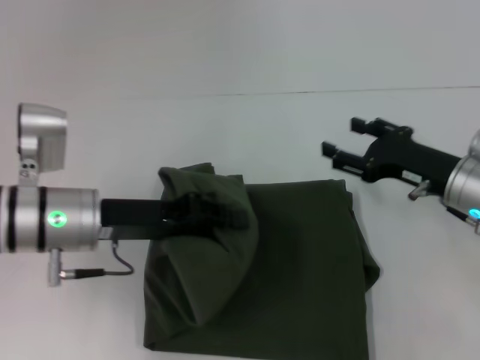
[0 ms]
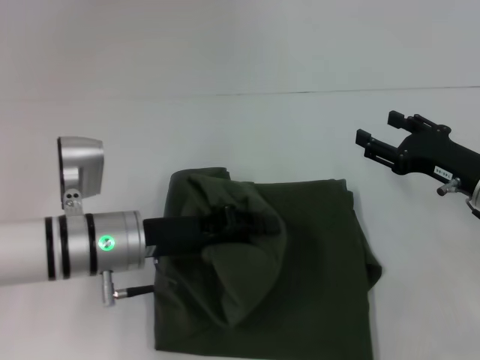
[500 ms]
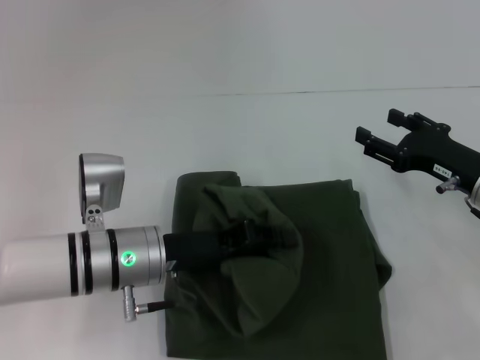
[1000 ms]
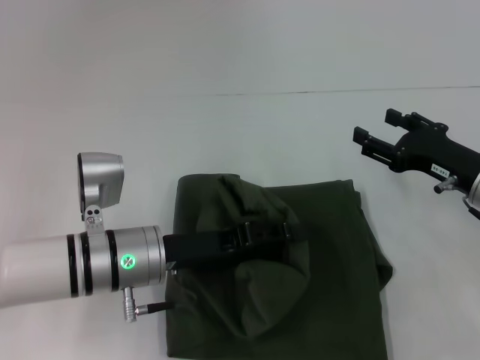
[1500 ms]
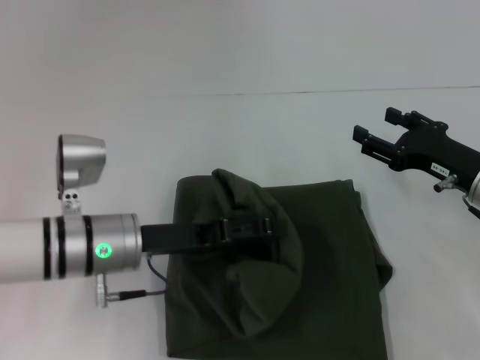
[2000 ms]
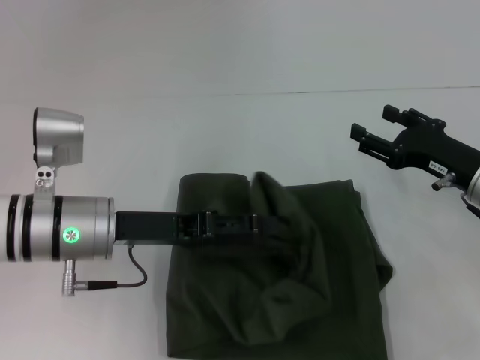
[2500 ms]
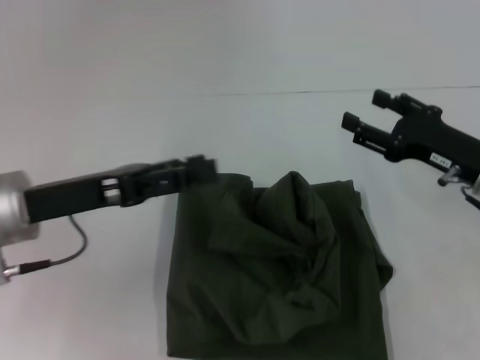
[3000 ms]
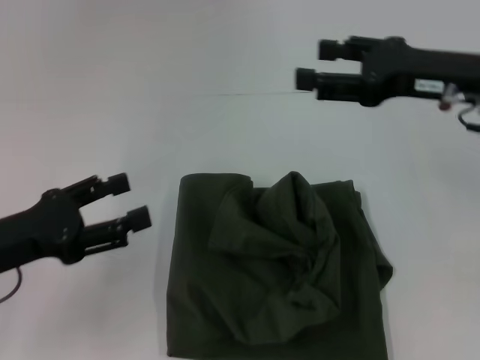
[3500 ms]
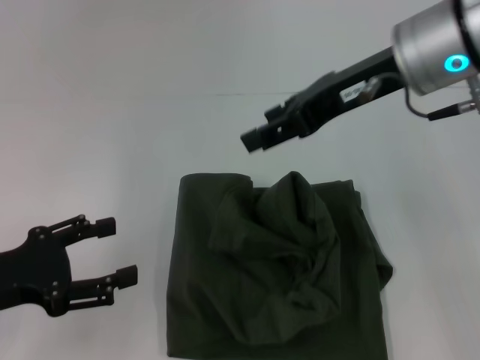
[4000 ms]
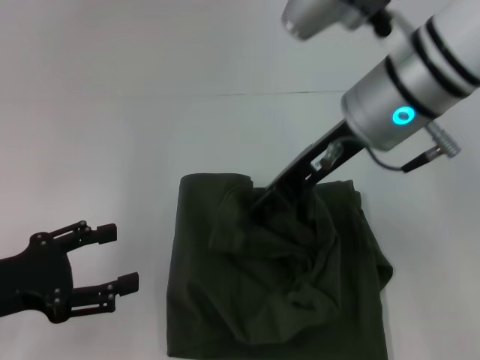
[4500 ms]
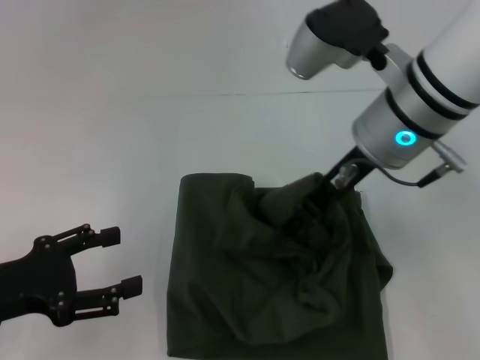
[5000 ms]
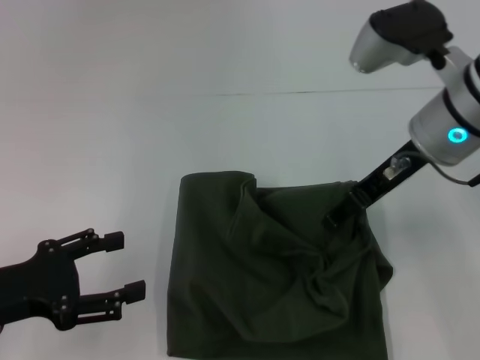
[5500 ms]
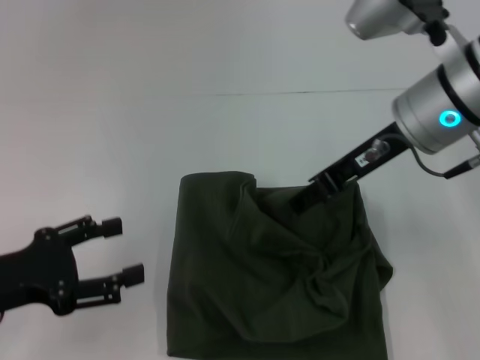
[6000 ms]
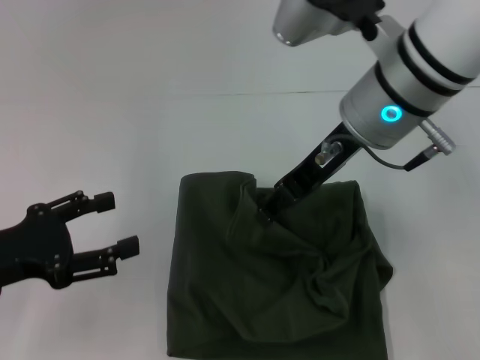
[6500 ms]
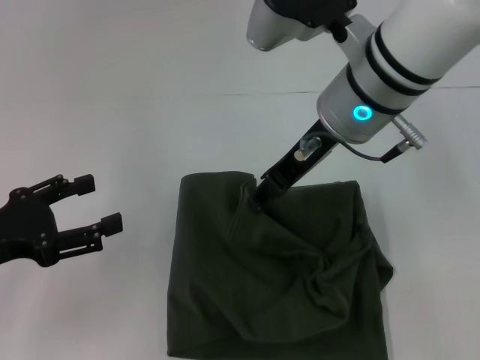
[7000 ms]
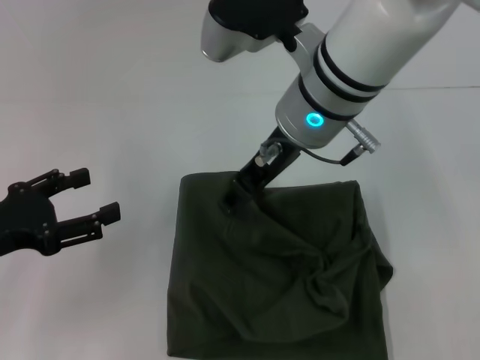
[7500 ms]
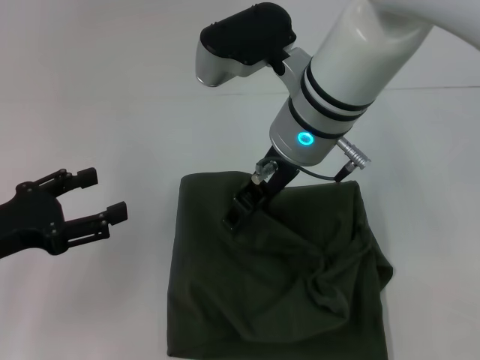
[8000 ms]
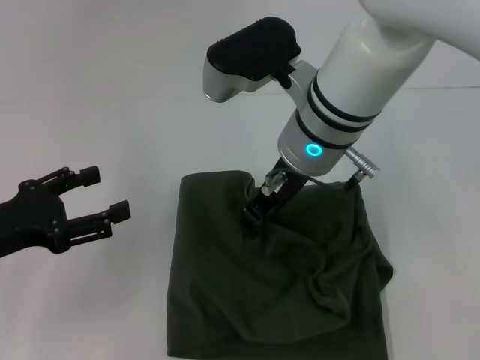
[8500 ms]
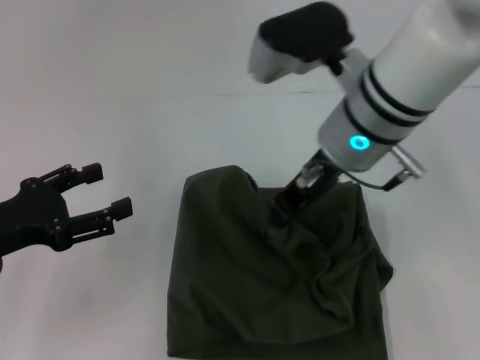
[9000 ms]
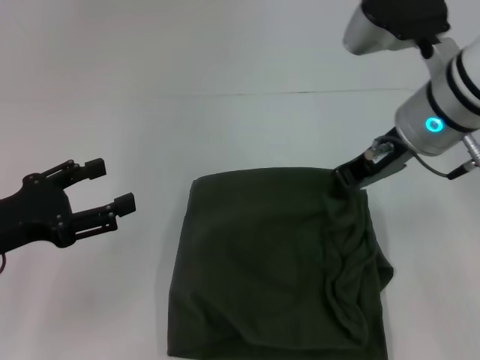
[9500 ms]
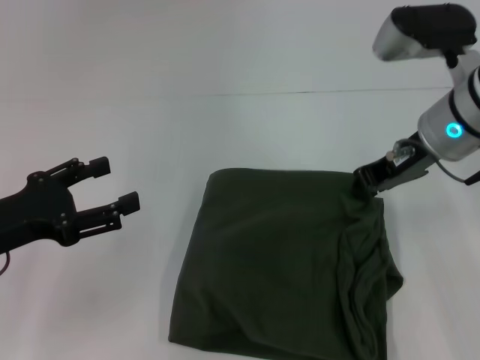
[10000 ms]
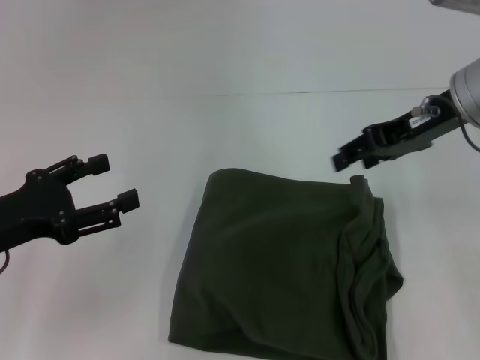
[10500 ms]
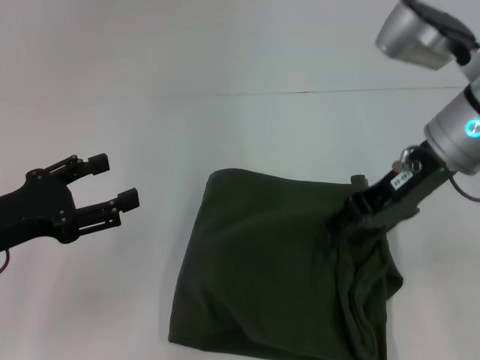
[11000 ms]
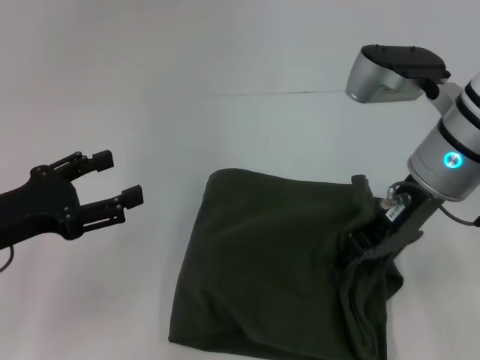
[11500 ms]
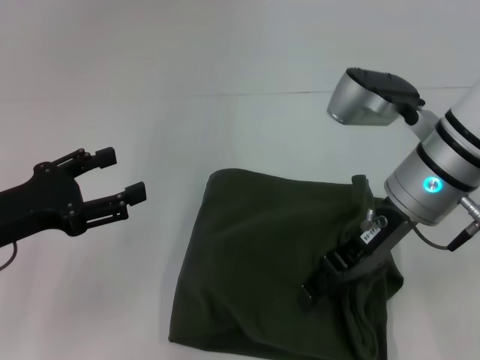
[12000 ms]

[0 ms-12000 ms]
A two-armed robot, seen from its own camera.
Step, 0 ms to 10000 ms: Fold the clothes with your left hand.
0 ms to 2000 ms: The left gripper opens.
2000 ms to 4000 ms: The right gripper shifts roughly 25 cm upward and to the left, while the left gripper travels to the left and backward by about 15 cm.
6000 ms to 8000 ms: The right gripper heads to the left, covering approximately 10 cm.
8000 ms to 10000 ms: The right gripper travels to the right by approximately 15 cm, and closes its fingers.
10000 ms to 12000 ms: The right gripper ends up about 5 cm from where it was, and opens its fingers.

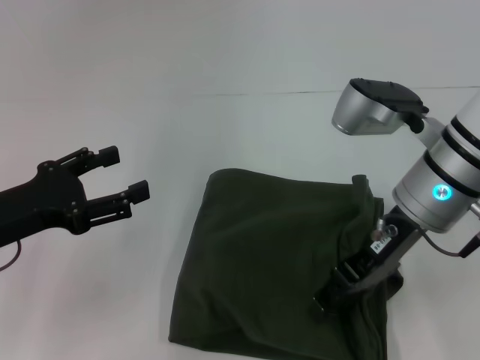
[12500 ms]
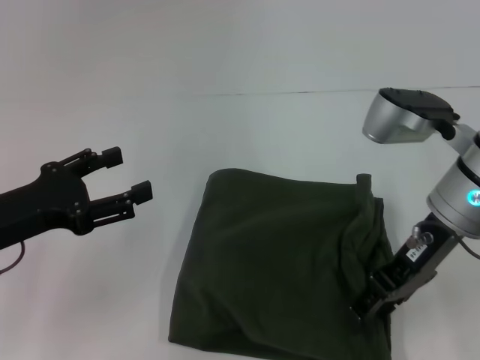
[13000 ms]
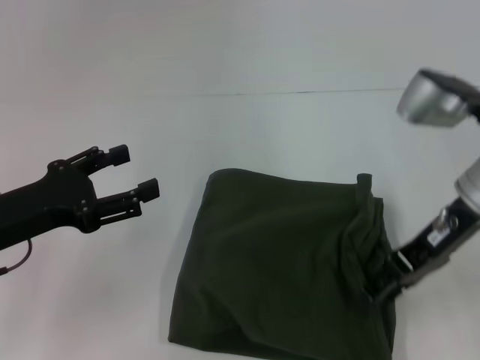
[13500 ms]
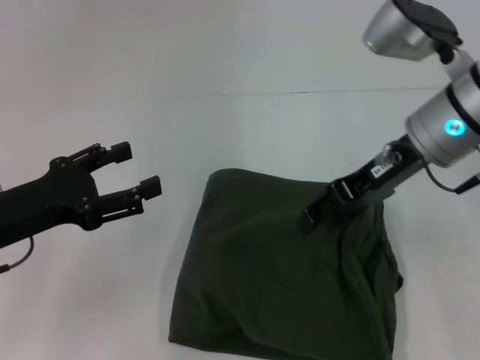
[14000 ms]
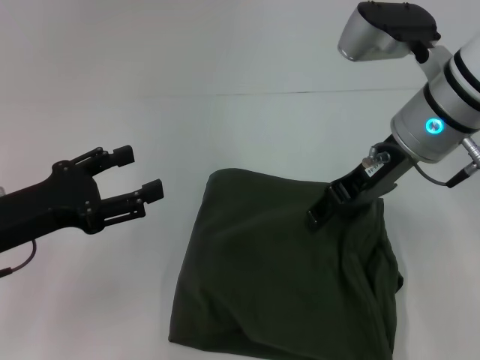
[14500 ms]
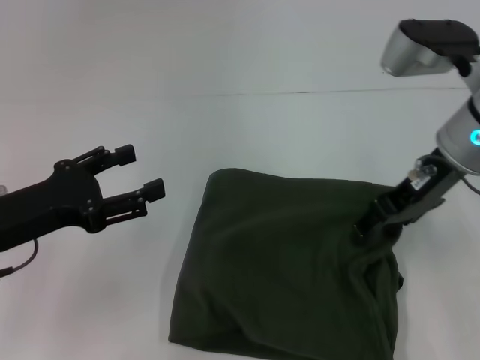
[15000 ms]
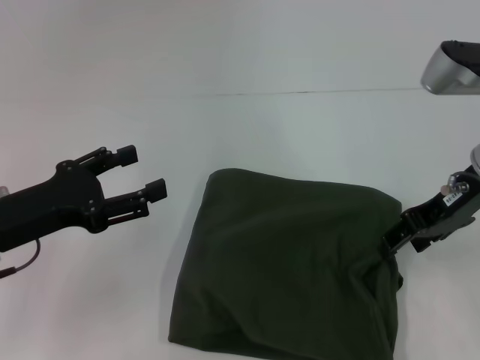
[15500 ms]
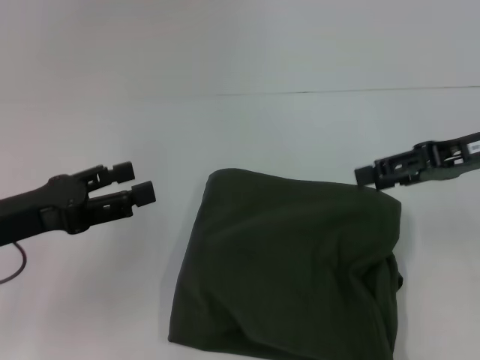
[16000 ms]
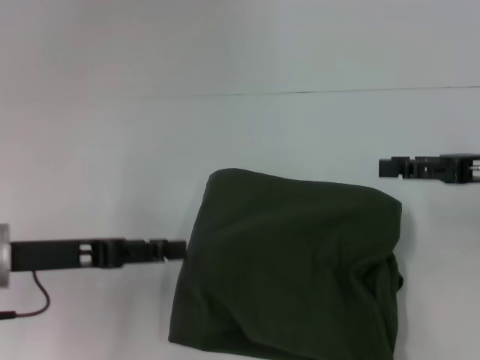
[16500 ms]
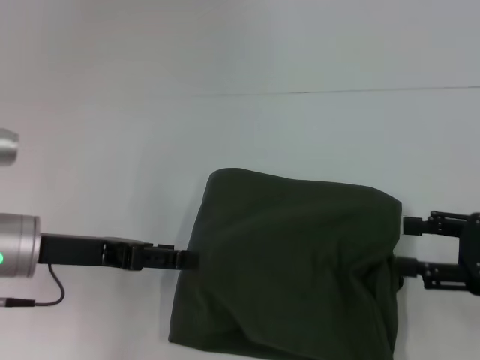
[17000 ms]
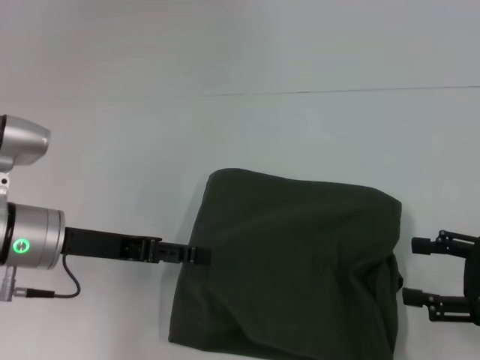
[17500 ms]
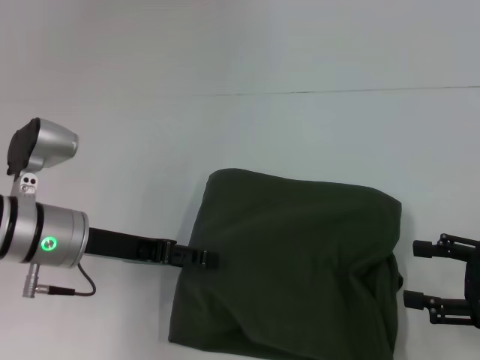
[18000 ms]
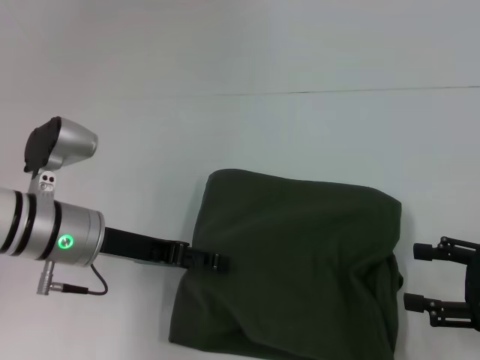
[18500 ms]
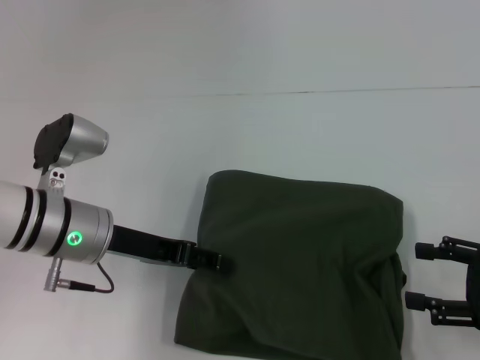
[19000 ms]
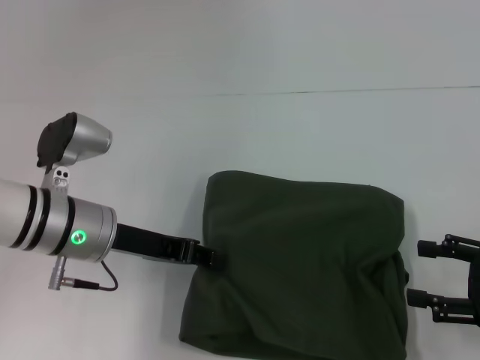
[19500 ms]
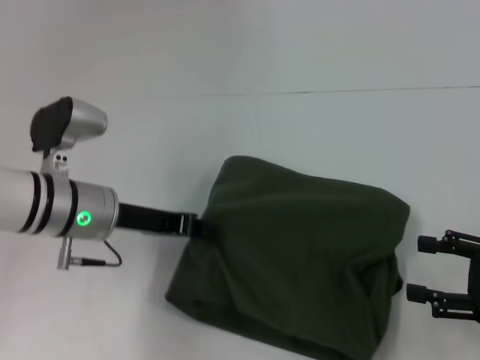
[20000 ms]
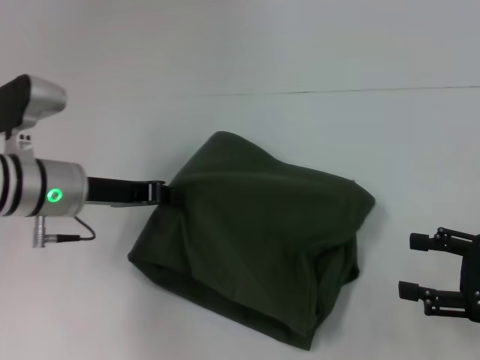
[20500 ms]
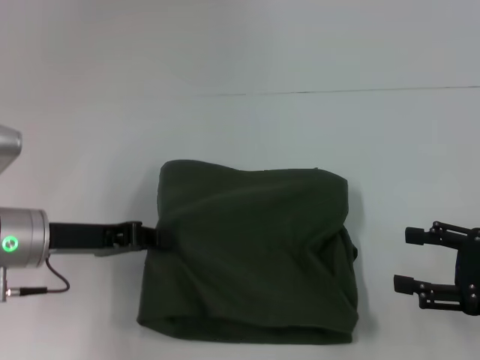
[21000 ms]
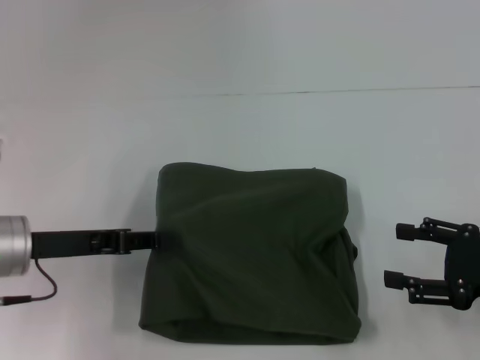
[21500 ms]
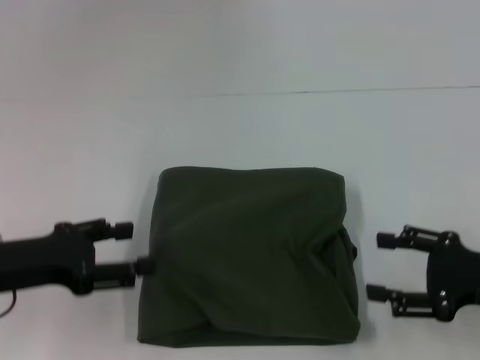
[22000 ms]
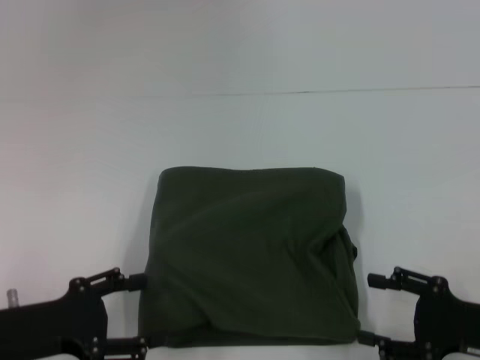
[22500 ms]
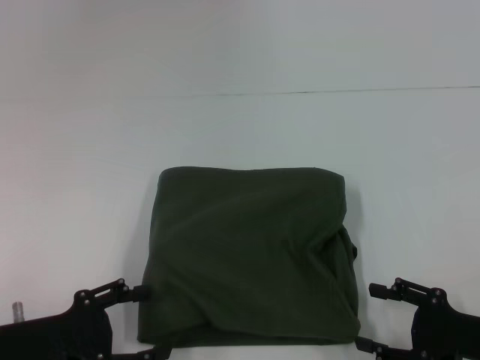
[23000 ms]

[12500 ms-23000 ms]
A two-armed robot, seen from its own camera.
12500 ms to 14500 ms: The right gripper shifts by roughly 5 cm.
14500 ms to 16500 ms: The right gripper moves to the right, approximately 15 cm.
16500 ms to 19000 ms: The right gripper shifts some 10 cm backward and downward. Meanwhile the left gripper travels to the right by some 5 cm.
19000 ms to 21000 ms: The left gripper goes approximately 5 cm to the left, and closes its fingers.
21000 ms to 23000 ms: The left gripper is displaced backward by roughly 10 cm, and opens up, while the right gripper moves downward, some 5 cm.

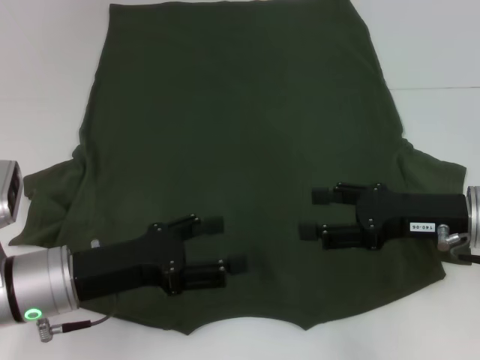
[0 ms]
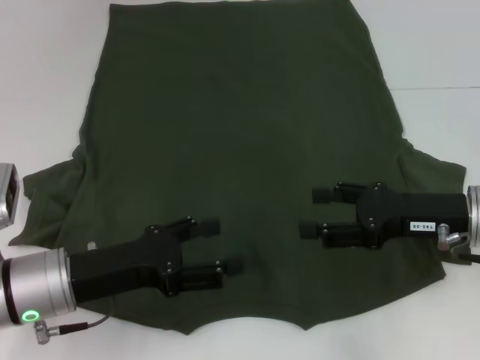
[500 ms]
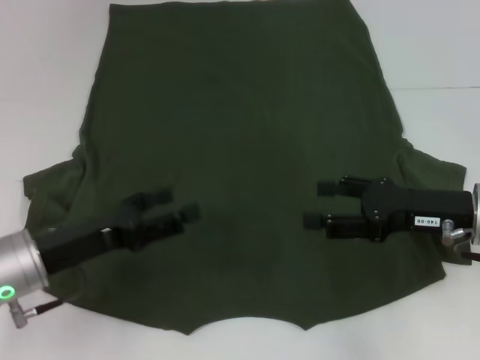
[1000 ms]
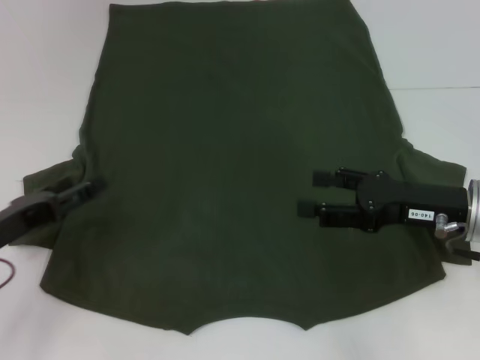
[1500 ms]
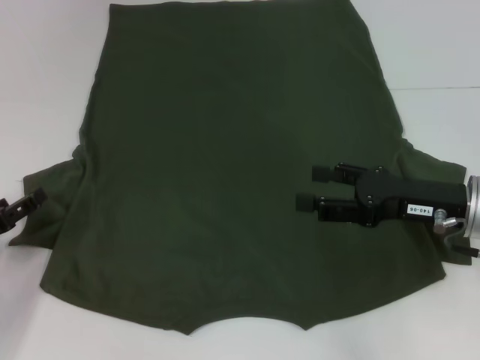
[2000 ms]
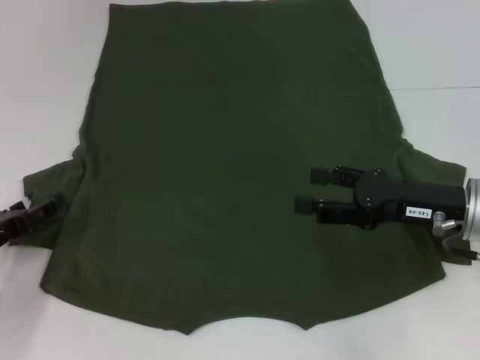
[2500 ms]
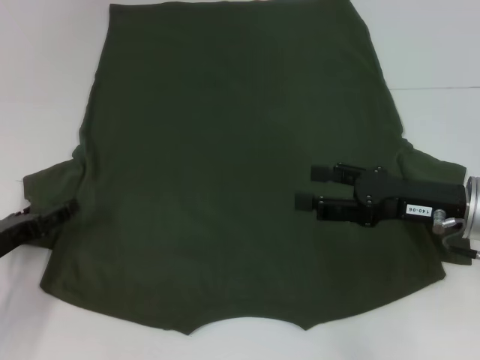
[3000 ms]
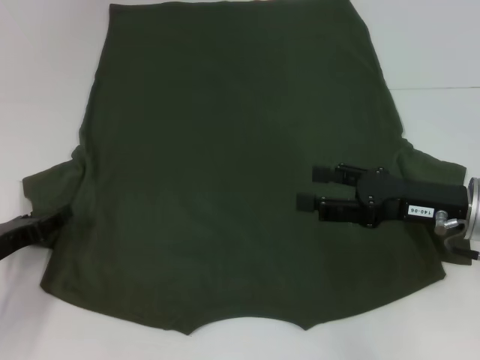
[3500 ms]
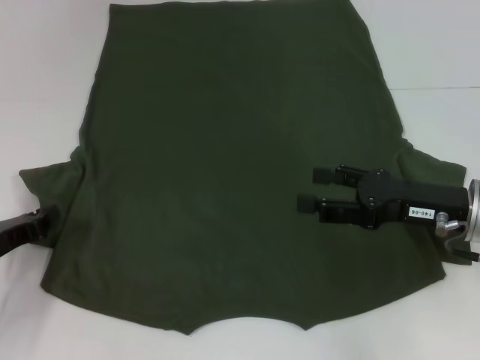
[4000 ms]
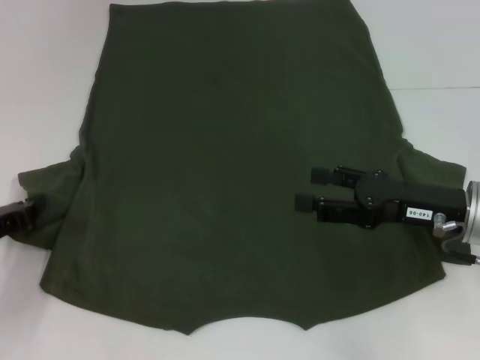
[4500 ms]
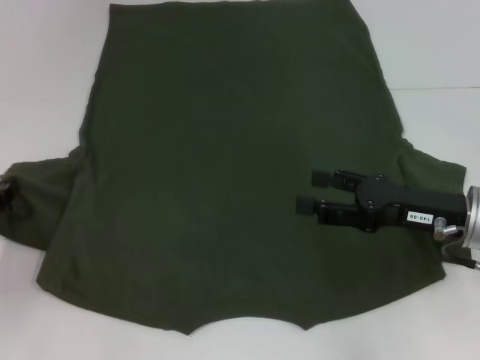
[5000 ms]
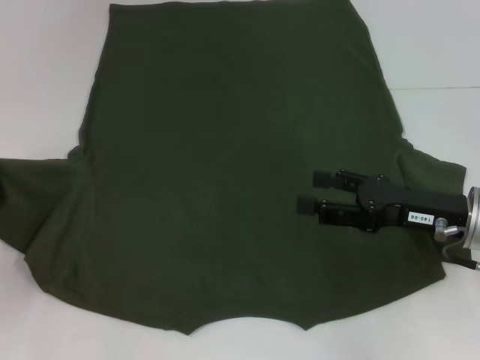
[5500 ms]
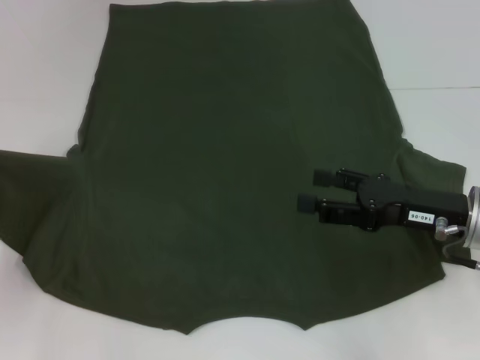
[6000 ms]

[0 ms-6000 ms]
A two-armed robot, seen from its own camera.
0 ms to 2000 ms: The left gripper shifts some 15 cm to the left.
2000 ms to 4000 ms: The left gripper closes its fingers.
4000 ms to 6000 ms: The left gripper ends up about 5 cm from where it was.
